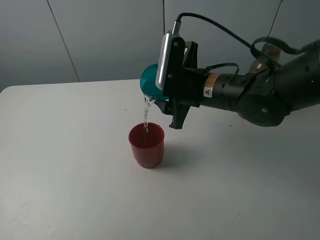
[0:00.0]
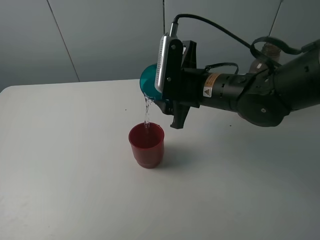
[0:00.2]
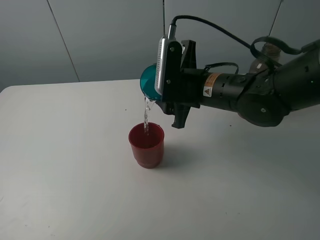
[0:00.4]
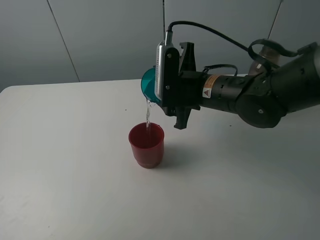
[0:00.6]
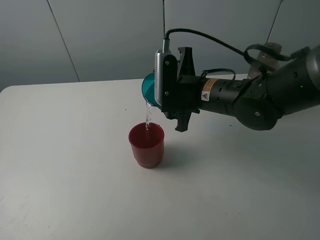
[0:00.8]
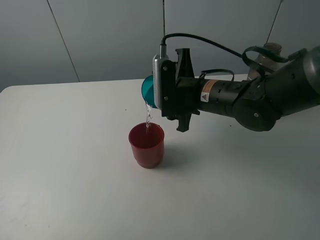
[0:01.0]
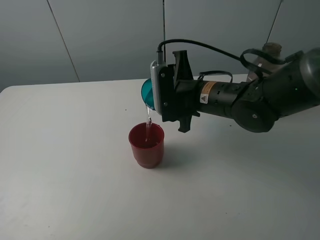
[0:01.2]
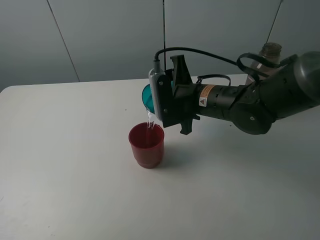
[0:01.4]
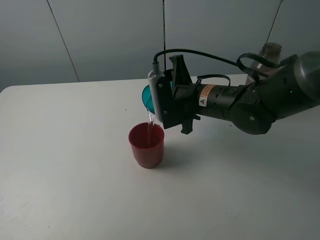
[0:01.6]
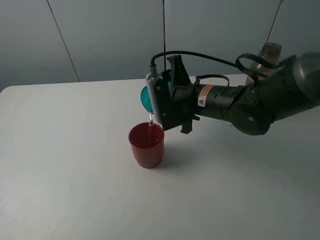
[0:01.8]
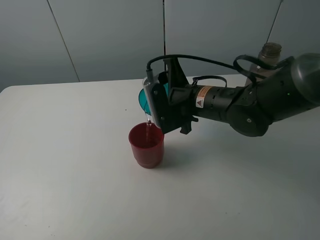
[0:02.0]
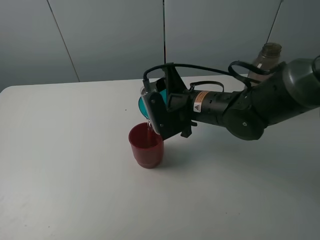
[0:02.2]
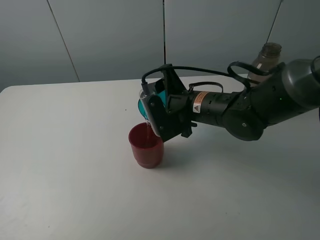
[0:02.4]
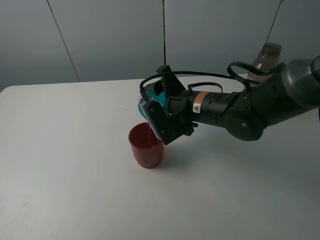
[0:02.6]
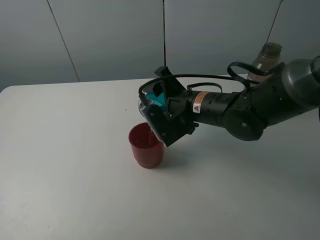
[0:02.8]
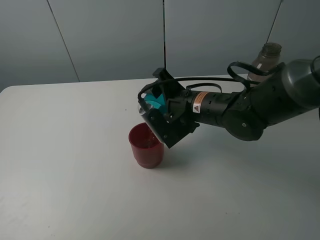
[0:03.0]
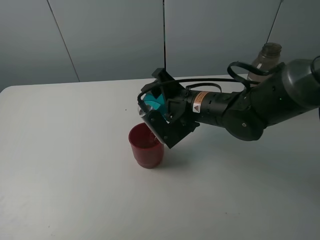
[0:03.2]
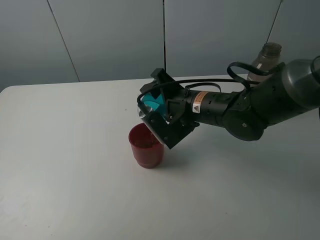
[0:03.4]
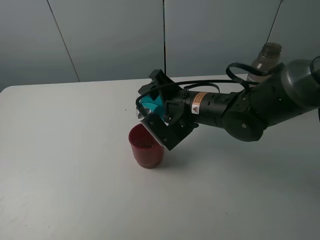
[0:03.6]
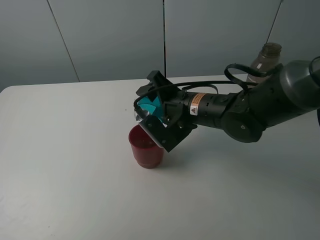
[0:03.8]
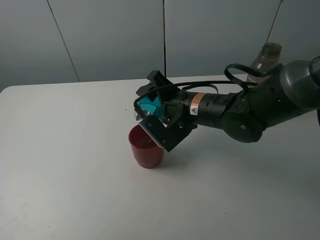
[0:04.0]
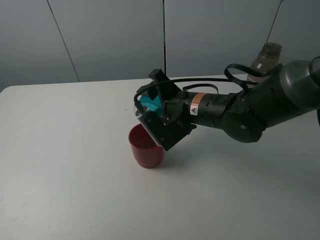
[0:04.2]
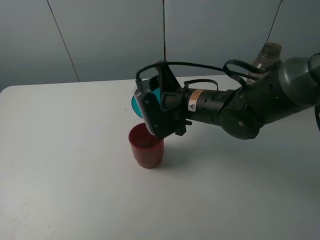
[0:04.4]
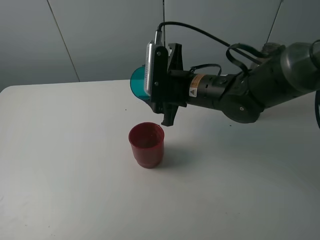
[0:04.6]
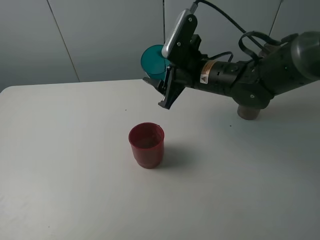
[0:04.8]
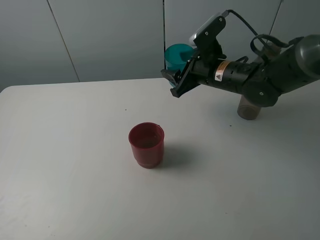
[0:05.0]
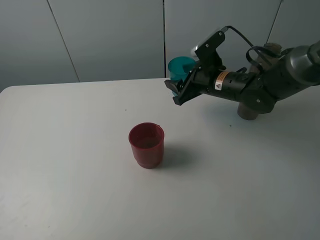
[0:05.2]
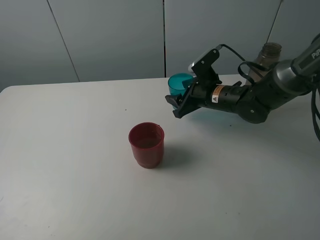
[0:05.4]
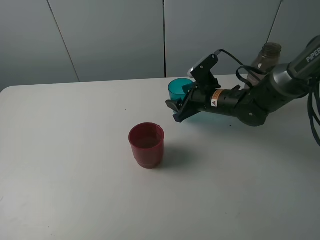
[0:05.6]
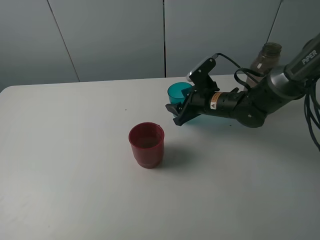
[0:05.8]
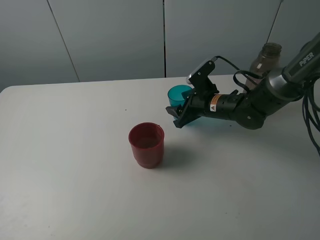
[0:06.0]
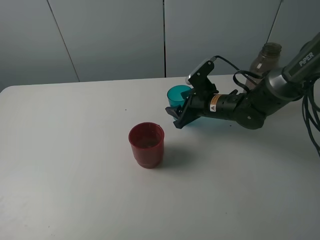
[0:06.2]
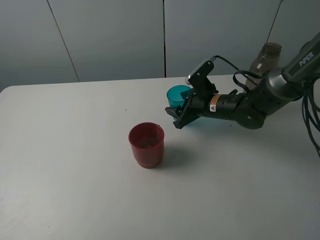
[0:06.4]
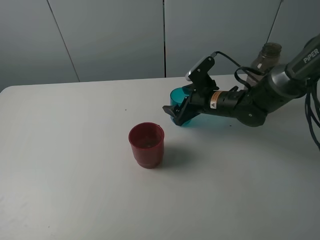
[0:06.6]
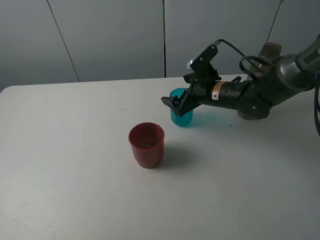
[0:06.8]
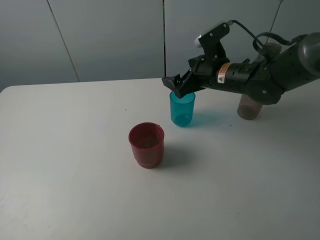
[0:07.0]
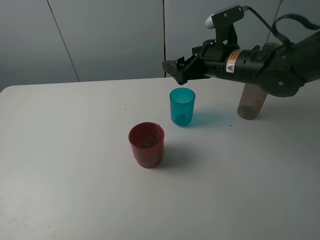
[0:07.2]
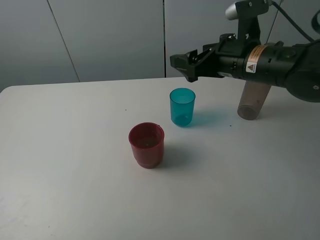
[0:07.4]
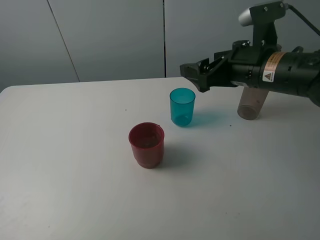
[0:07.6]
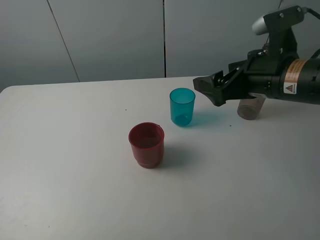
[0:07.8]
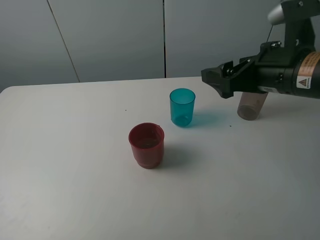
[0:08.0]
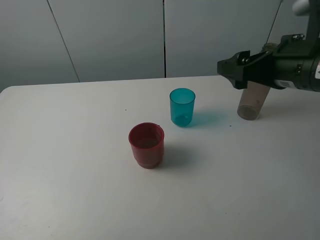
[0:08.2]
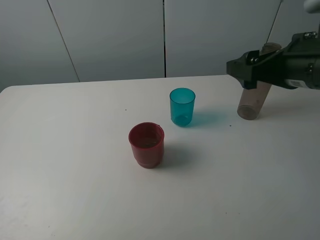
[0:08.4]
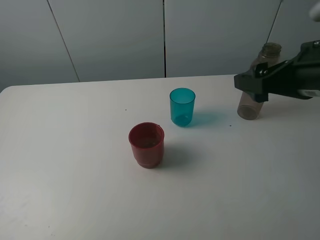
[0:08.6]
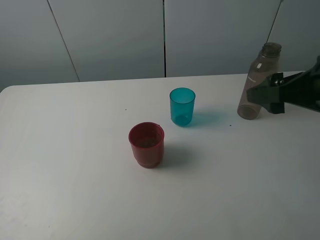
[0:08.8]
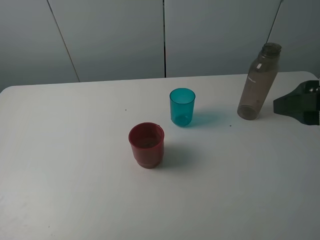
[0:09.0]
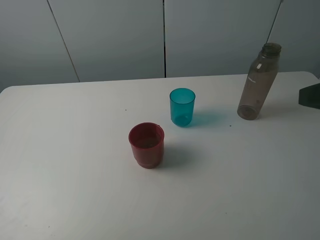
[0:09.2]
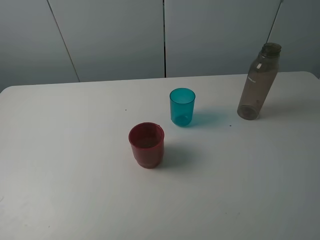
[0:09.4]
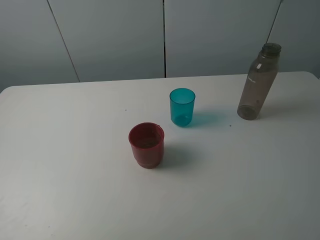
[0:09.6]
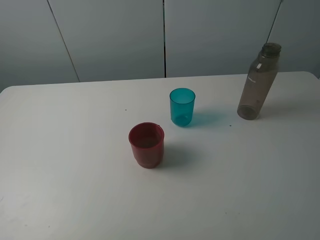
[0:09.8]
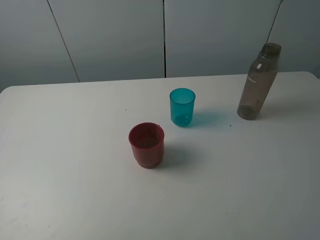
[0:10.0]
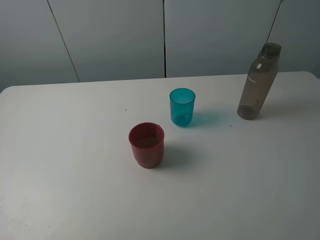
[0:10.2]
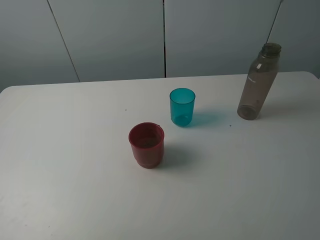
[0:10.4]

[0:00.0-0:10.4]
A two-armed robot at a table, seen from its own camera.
Task of the whole recording: pick up the bottle and pour water into the cup, then pick up the cup containing water and pour it into another cup.
Step, 0.0 to 4.4 s: Pour water from blue cup to red cup with the right gripper.
Step, 4.6 to 6.8 s: Place the blue cup with the right gripper.
3.0 to 4.4 s: The grippers move only a little.
4.4 to 6.0 s: The right gripper heads downward, forward and to the right, covering some 15 cm.
6.0 to 7.4 s: The right gripper goes about 15 cm upward and backward, and opens up.
7.4 to 9.0 s: The right gripper heads backward and to the right, covering about 20 cm.
9.0 to 10.4 s: The right gripper moves backward, some 15 cm.

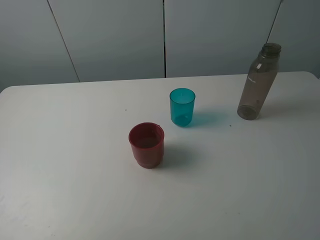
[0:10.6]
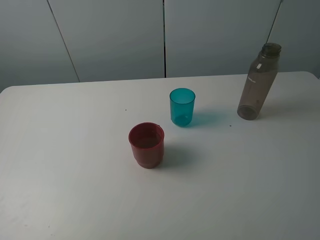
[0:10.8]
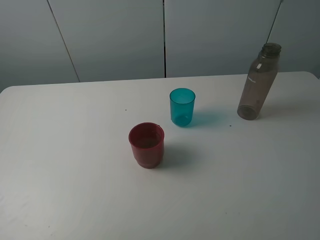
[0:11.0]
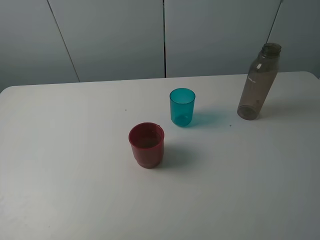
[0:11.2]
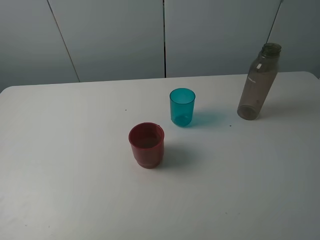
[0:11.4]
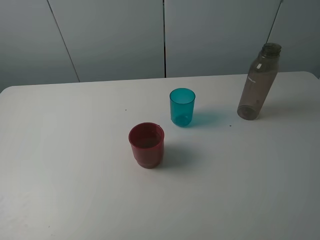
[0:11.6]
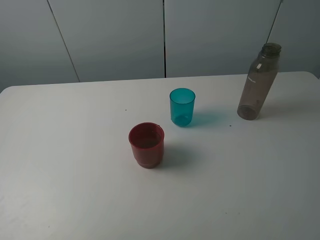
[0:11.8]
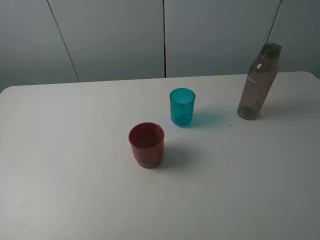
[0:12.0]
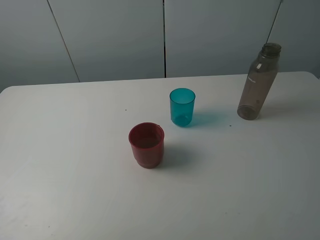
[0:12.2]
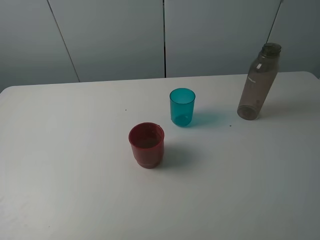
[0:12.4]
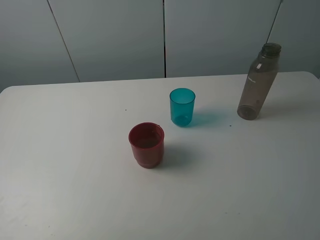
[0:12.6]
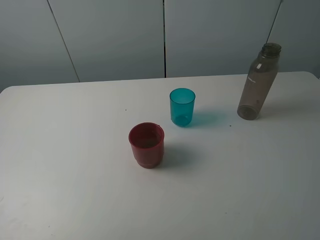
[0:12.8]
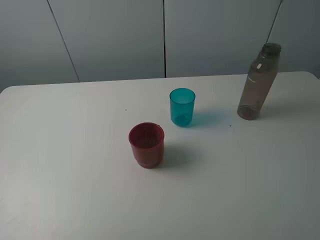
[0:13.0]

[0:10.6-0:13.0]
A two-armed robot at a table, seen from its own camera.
Task of the whole recording: pick up the bottle and pour water into the cup, then pick up the cup containing water and pour it into another cup.
11.8 to 13.0 s: The two grippers keep their place.

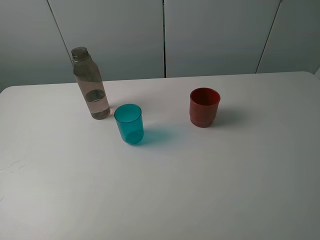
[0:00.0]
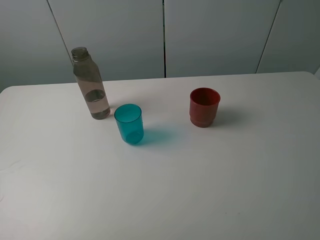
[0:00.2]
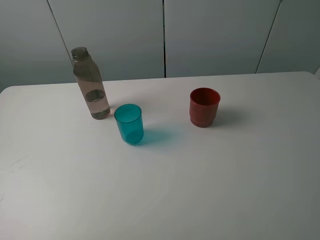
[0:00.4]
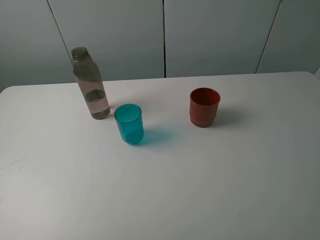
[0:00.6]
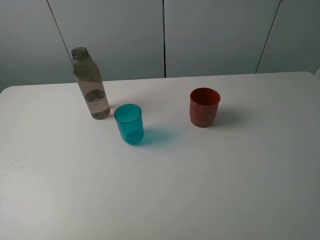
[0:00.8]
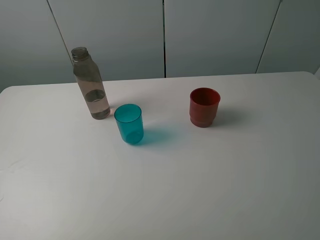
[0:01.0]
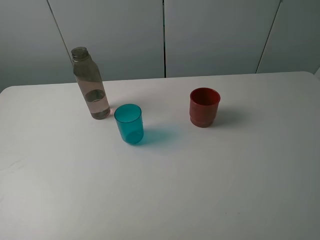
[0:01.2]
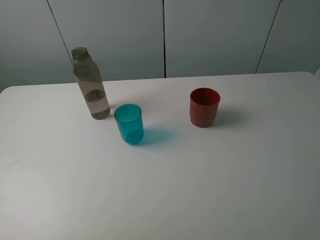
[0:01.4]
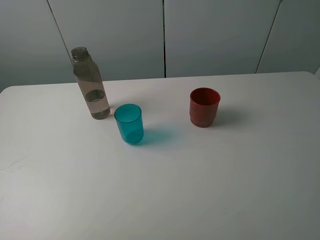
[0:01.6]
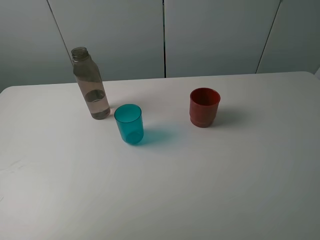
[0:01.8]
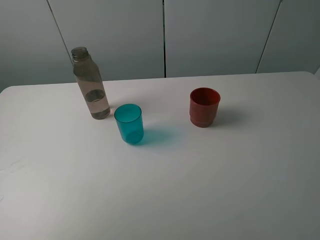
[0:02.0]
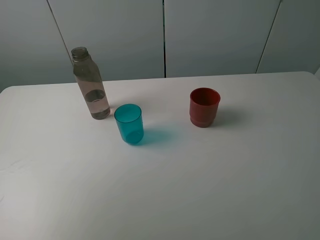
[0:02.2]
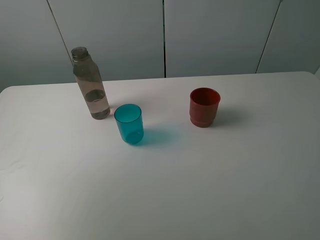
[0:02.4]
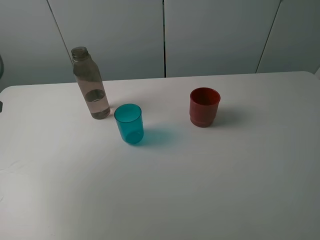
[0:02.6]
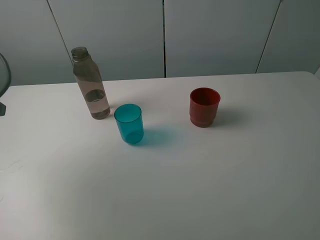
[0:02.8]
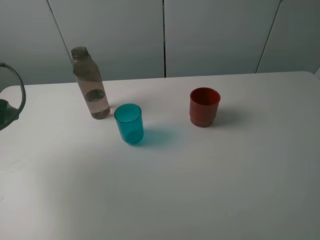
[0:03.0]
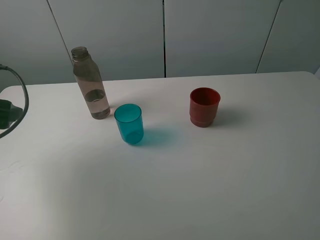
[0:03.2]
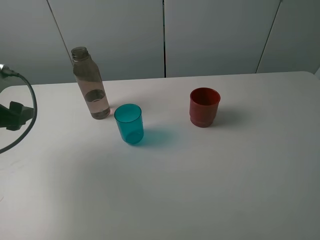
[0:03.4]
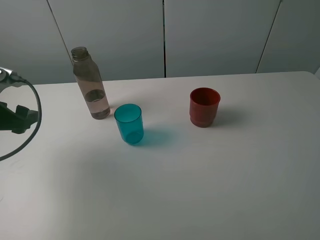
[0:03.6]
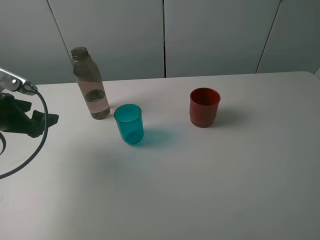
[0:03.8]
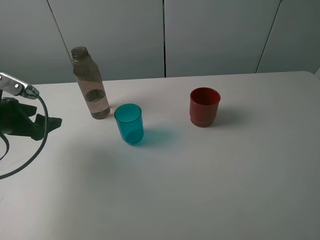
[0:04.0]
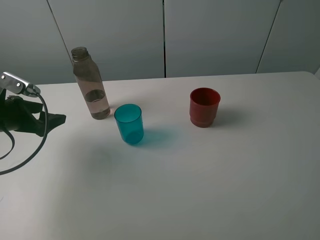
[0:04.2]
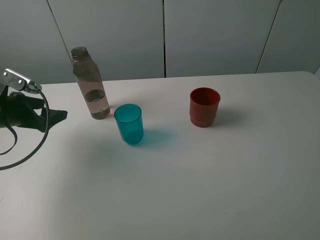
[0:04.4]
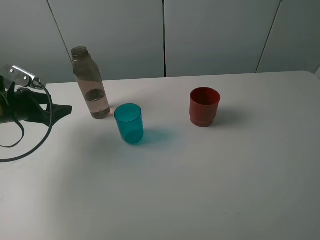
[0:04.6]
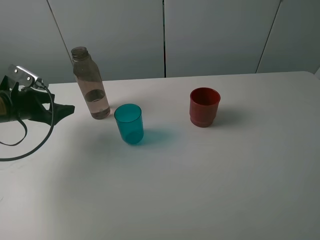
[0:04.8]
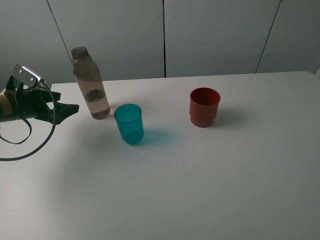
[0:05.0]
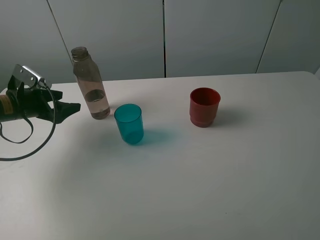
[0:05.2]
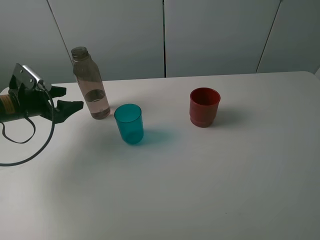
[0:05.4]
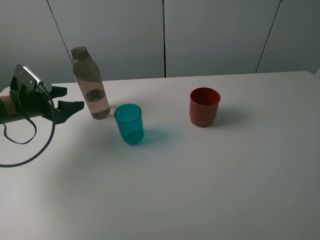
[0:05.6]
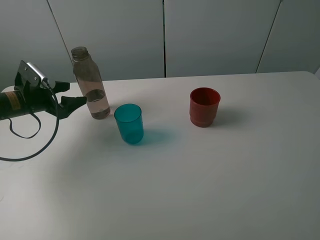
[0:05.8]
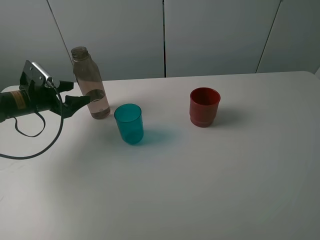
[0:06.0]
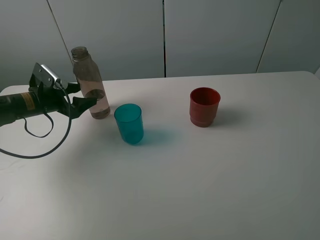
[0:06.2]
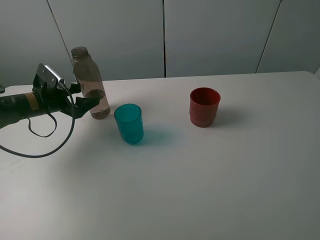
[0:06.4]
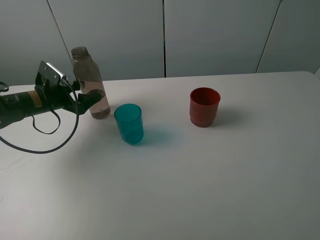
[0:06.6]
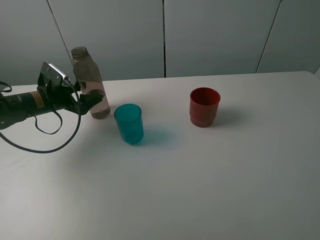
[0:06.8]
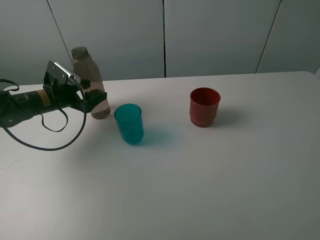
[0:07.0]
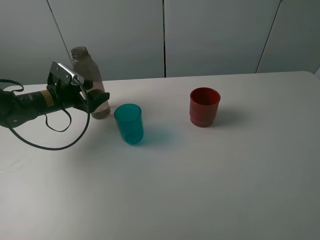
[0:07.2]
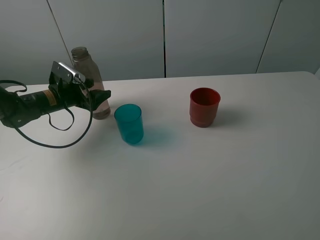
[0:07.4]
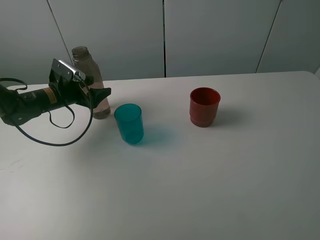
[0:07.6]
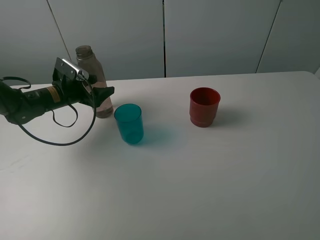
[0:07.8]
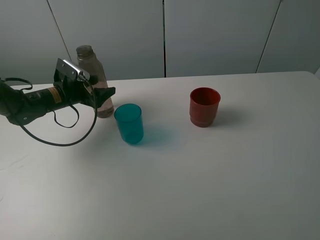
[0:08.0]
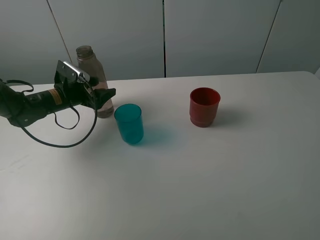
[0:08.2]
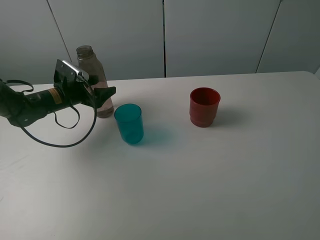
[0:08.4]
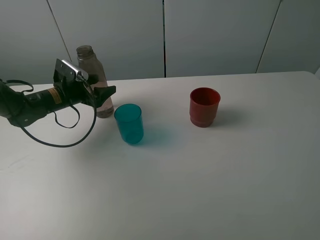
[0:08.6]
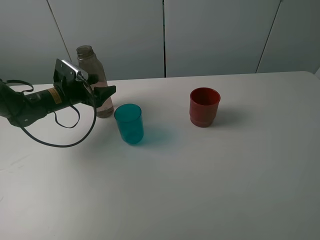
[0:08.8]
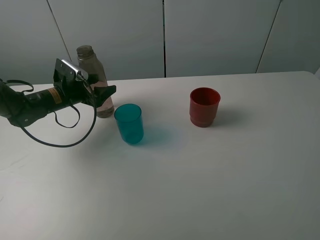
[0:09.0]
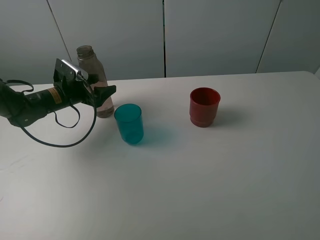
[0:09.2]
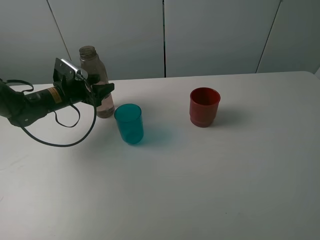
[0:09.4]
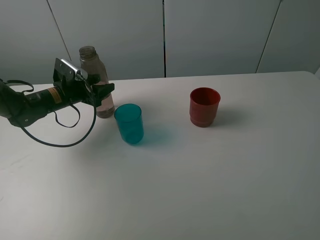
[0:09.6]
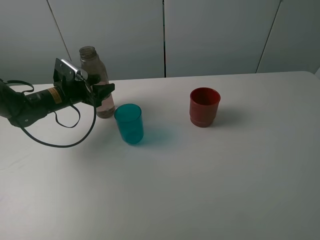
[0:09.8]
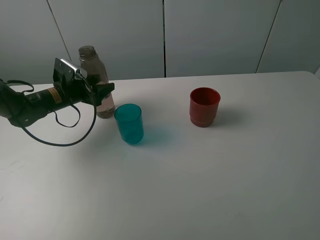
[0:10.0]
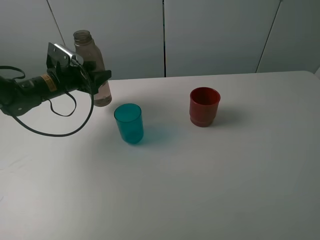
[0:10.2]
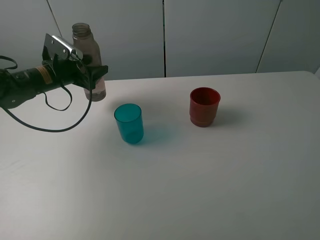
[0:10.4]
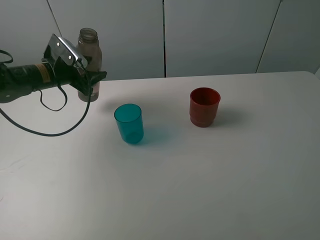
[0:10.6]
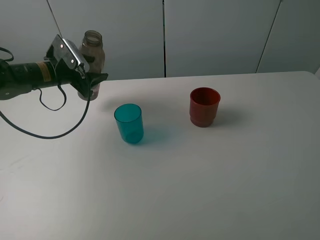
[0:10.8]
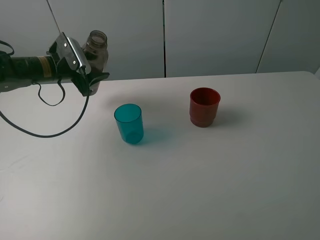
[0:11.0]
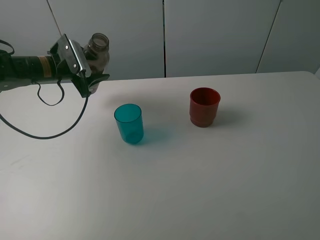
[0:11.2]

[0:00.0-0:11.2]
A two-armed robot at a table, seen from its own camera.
Task of the whole recording: pick up the bottle and pour water into the cup, then pick up the cup containing water and pour it into another cup.
Step, 0.0 to 9.6 s: Grasp the brown bottle with the left gripper.
1.6 to 3.2 s: The left gripper travels forward and downward by about 25 cm.
3.2 to 4.8 s: The left gripper travels forward and downward by approximately 15 cm.
4.8 to 6.4 s: The left gripper moves roughly 5 cm.
6.4 to 8.0 s: The left gripper ends up some 5 cm from where it was.
8.0 to 9.6 s: The left gripper closes.
9.6 to 11.2 s: The left gripper heads upward, covering about 5 cm.
